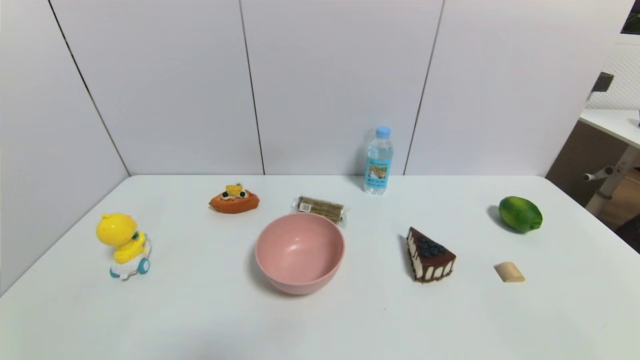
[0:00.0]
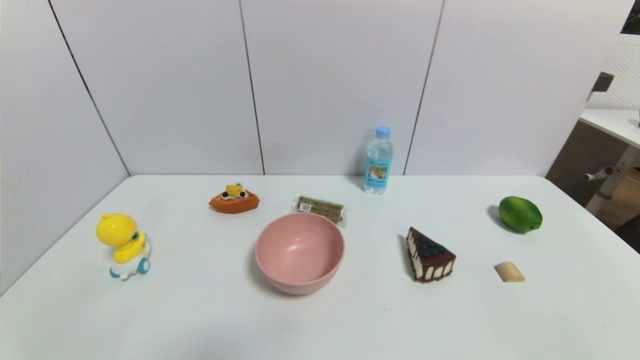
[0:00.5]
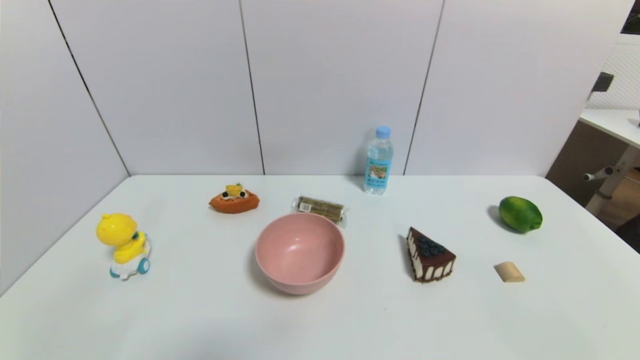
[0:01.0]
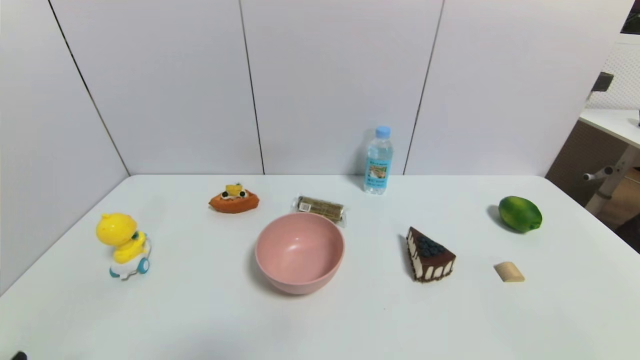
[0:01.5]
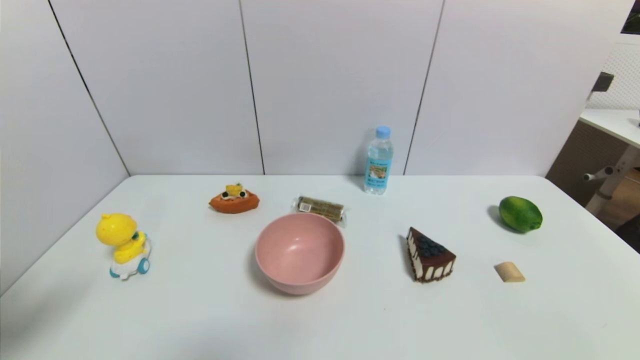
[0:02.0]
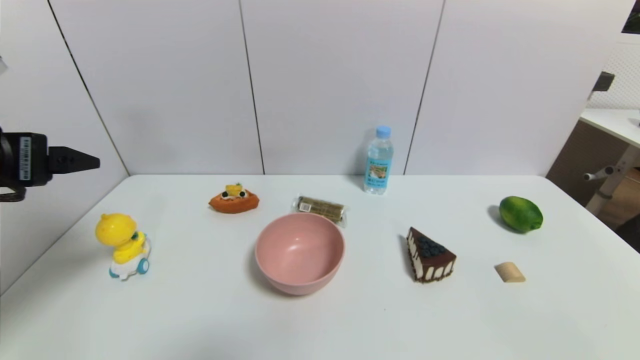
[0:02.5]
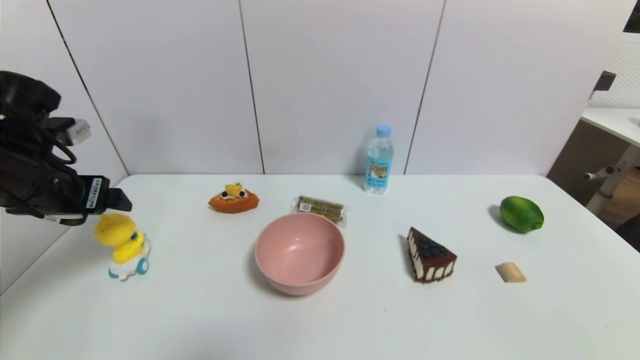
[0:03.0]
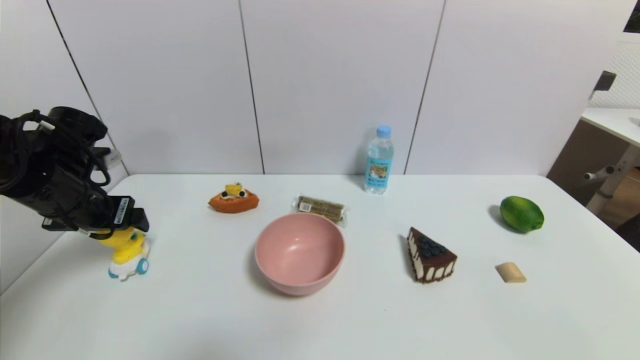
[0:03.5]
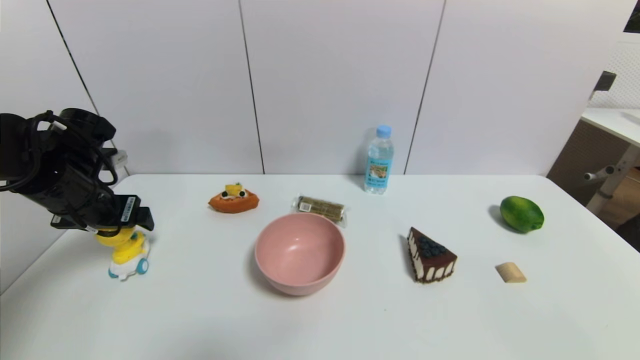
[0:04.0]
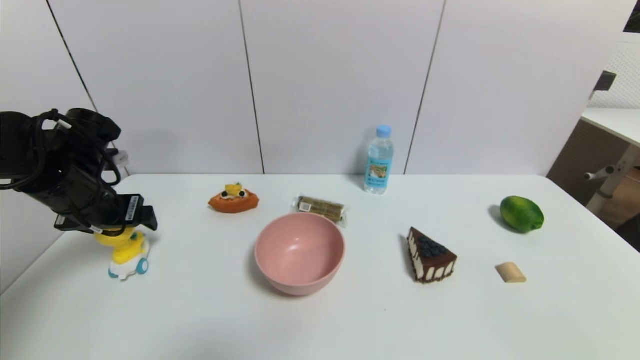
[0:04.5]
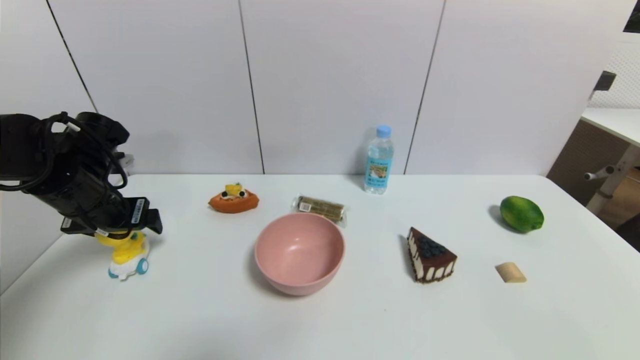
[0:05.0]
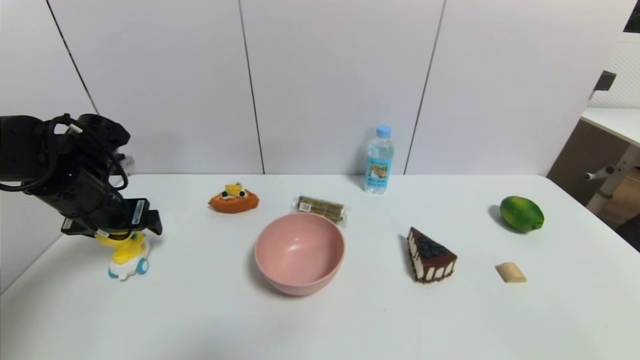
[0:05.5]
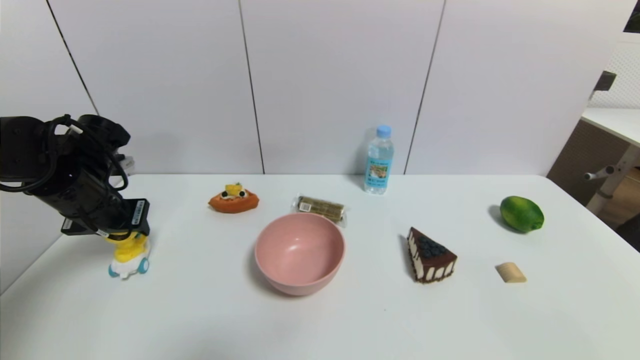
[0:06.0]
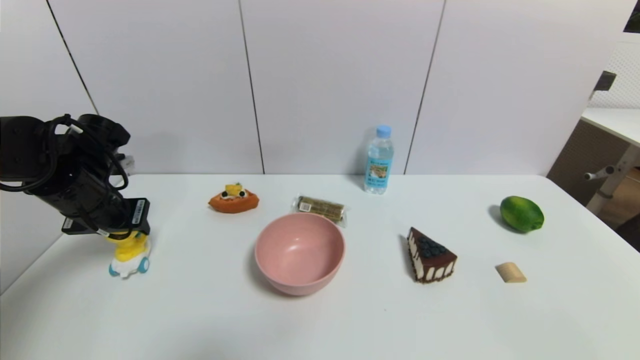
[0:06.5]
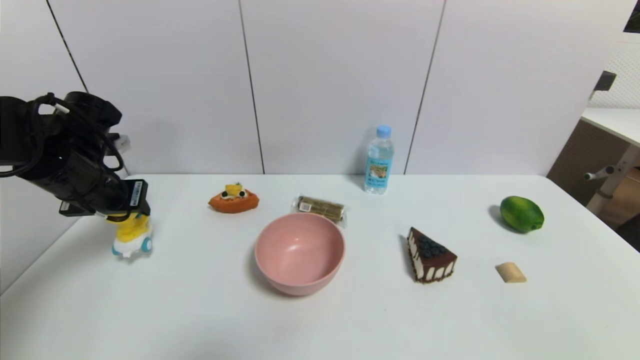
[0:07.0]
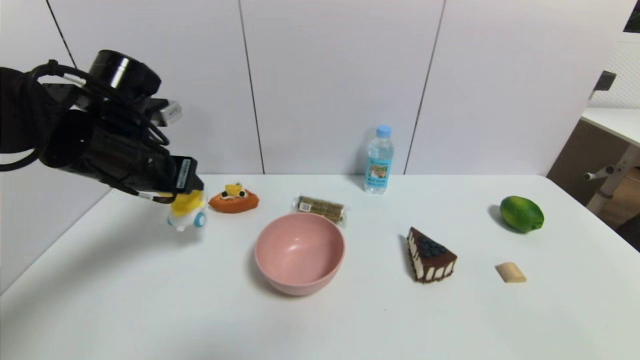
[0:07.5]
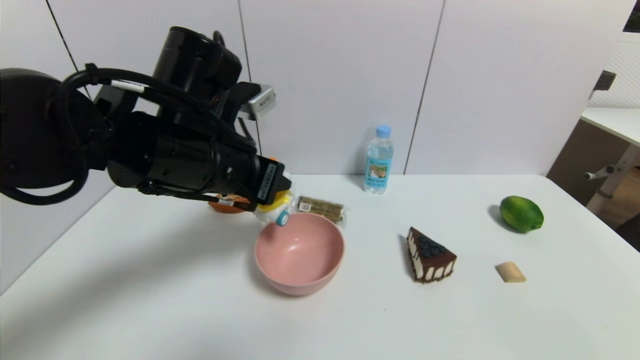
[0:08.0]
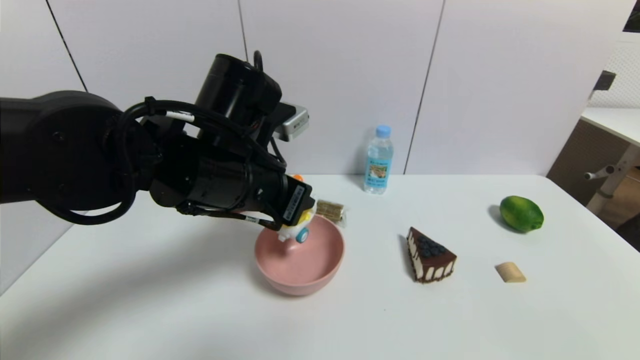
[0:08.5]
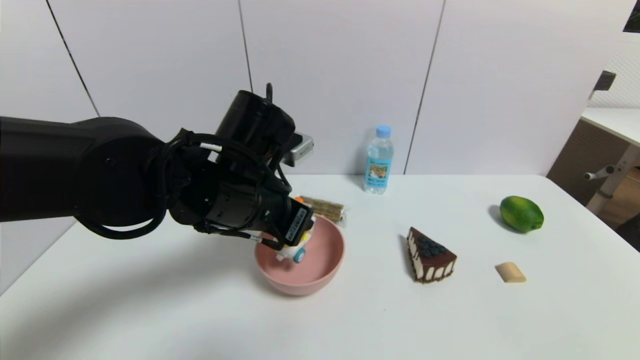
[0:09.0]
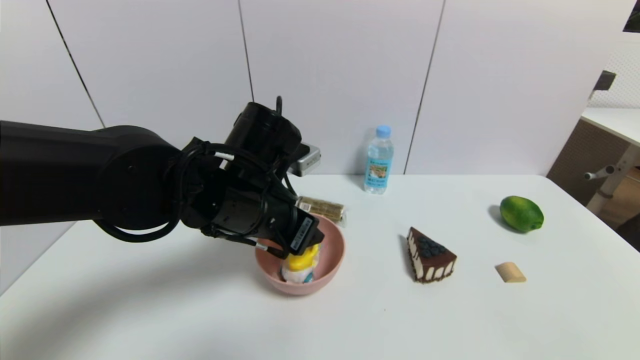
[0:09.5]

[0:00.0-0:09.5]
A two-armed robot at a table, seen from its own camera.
Task of the whole recording: use a gripper to pick the target object and place on the pink bowl.
Step, 0:00.0 to 0:06.0: Grasp the duck toy with the left gripper.
0:00.0 to 0:02.0: The left gripper is displaced upward by approximately 20 cm.
0:02.0 to 0:04.0: The left gripper goes approximately 25 cm forward.
0:04.0 to 0:05.5: The two grippers keep their place.
0:05.5 to 0:07.5: The left gripper travels to the right and upward by roughly 10 cm, and closes up.
0:07.5 to 0:09.5: The left gripper heads to the right, covering some 15 cm, and opens its fingers.

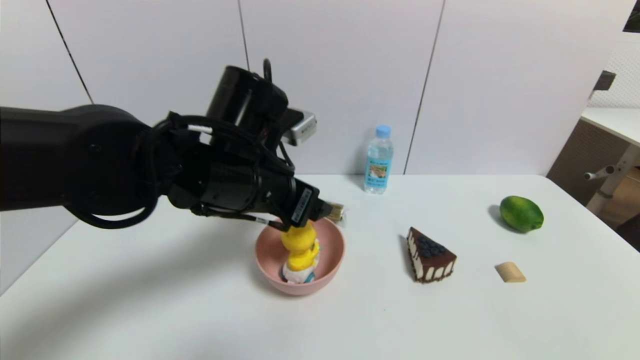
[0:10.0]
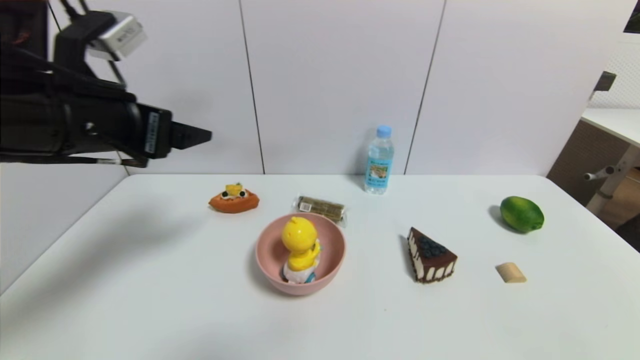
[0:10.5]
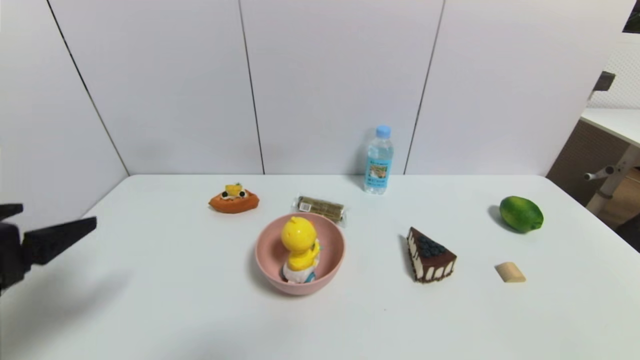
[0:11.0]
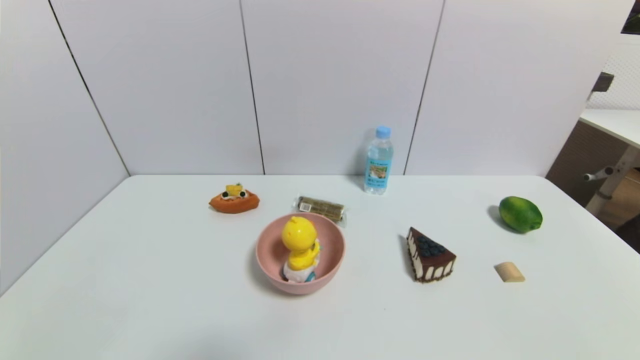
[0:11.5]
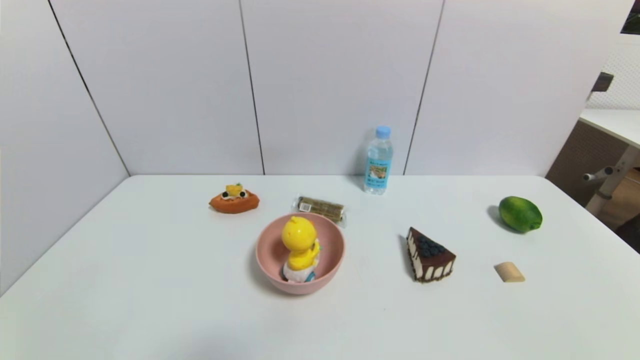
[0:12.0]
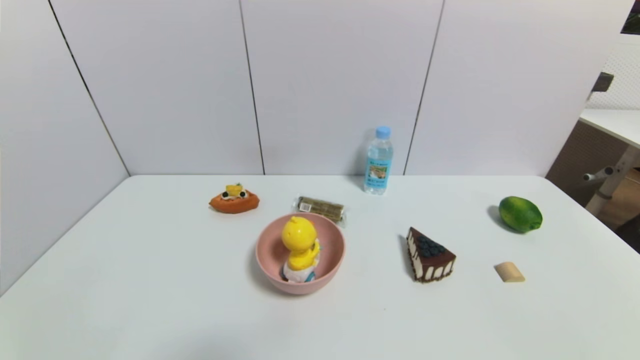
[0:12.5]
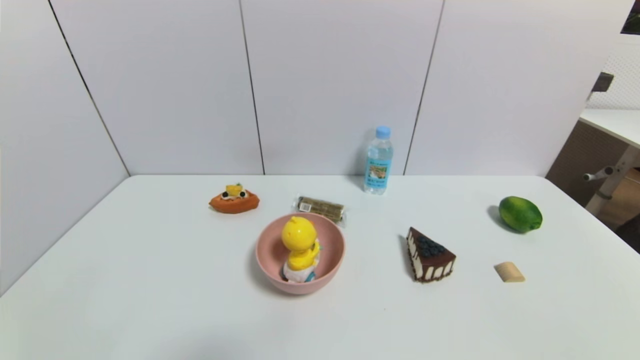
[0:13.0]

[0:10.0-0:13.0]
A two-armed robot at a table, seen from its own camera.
Task of the whole recording: use a gripper to pick the target object and place on the pink bowl.
0:10.0 to 0:11.5: The left gripper shifts about 35 cm backward, to the left and downward.
